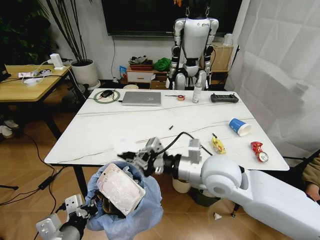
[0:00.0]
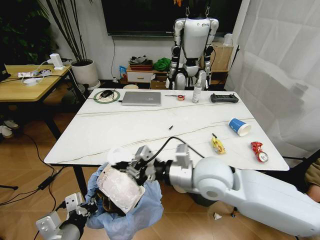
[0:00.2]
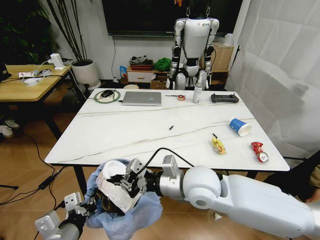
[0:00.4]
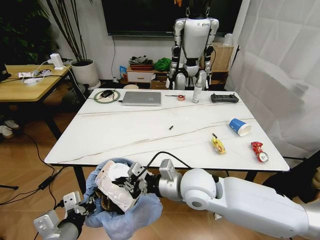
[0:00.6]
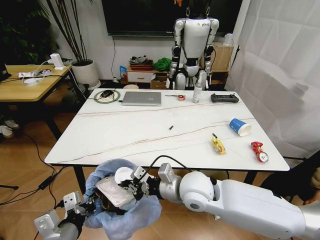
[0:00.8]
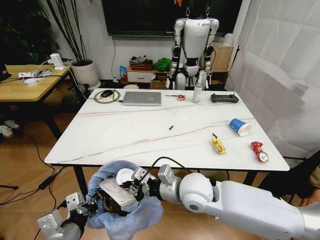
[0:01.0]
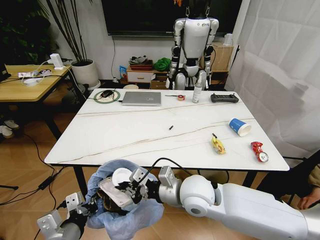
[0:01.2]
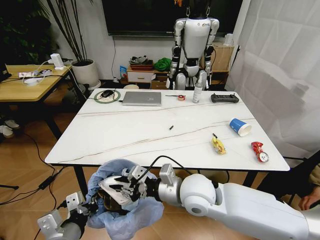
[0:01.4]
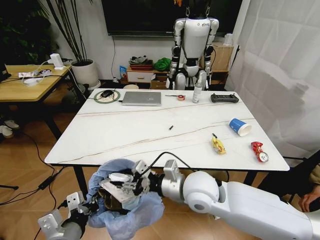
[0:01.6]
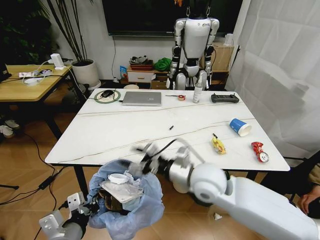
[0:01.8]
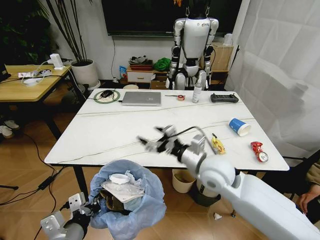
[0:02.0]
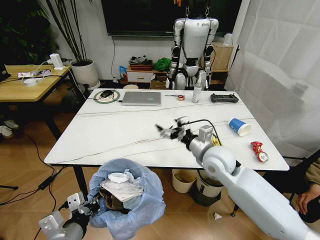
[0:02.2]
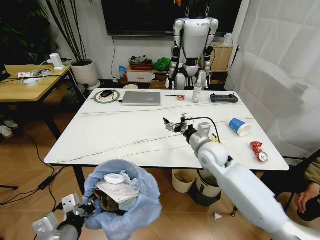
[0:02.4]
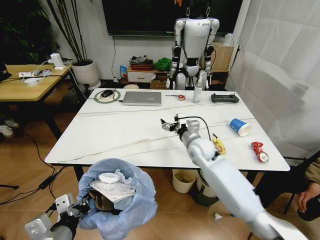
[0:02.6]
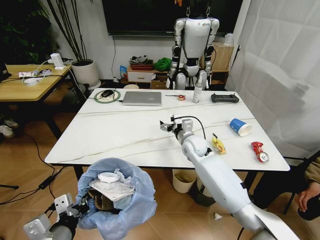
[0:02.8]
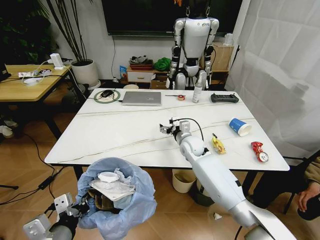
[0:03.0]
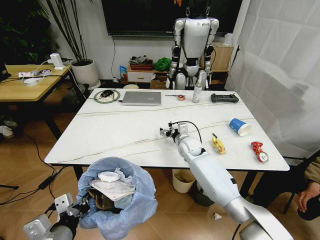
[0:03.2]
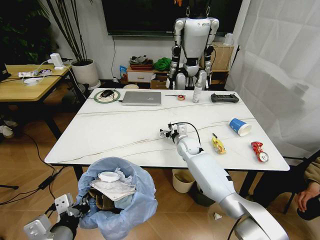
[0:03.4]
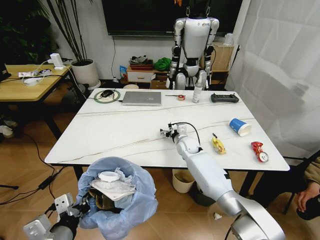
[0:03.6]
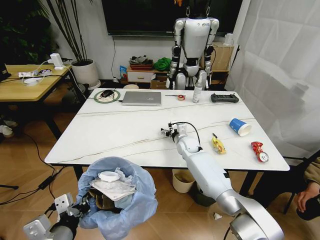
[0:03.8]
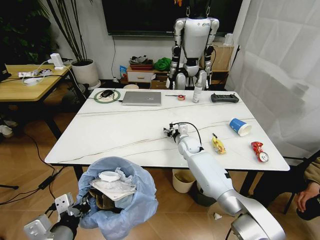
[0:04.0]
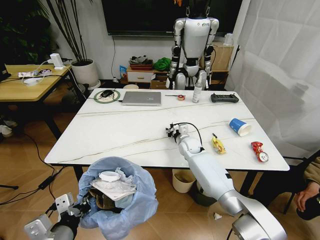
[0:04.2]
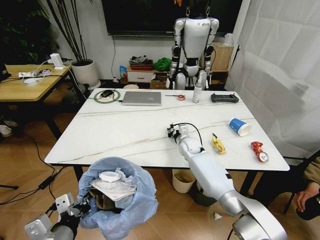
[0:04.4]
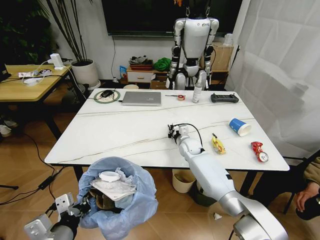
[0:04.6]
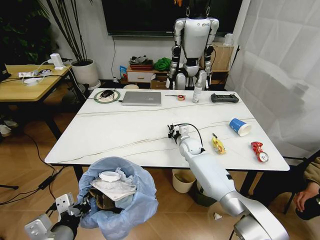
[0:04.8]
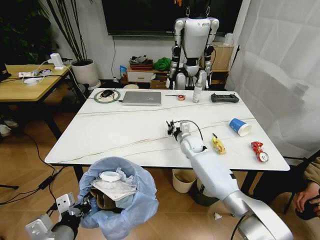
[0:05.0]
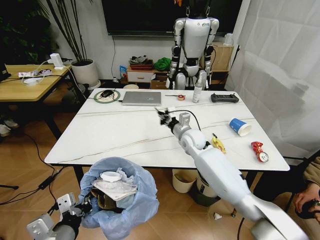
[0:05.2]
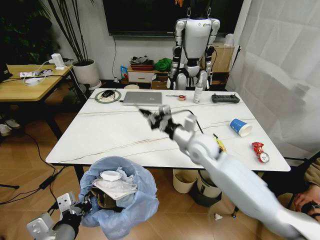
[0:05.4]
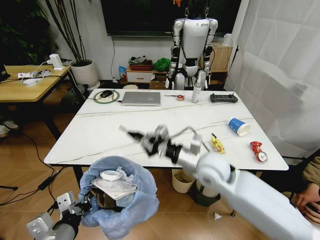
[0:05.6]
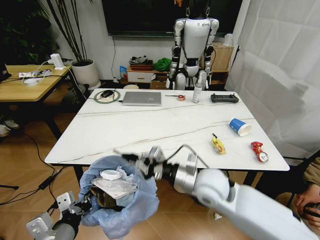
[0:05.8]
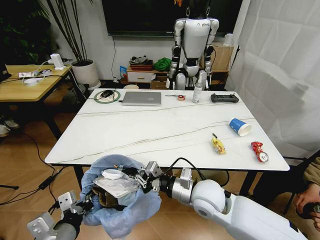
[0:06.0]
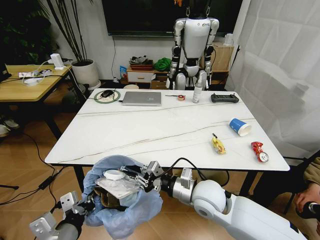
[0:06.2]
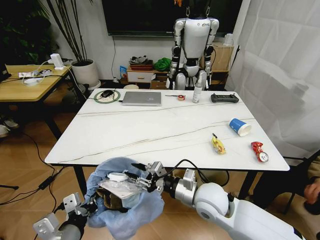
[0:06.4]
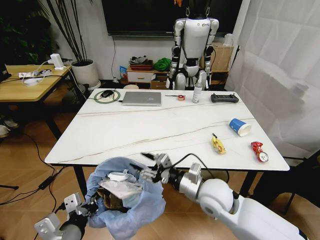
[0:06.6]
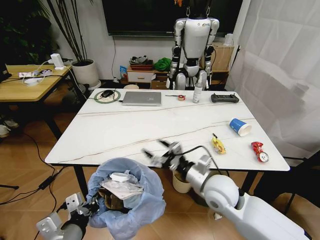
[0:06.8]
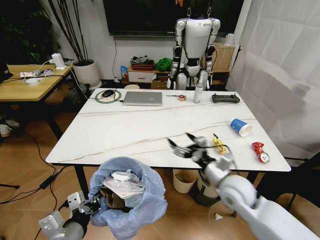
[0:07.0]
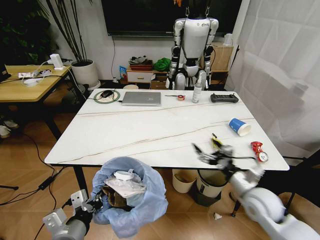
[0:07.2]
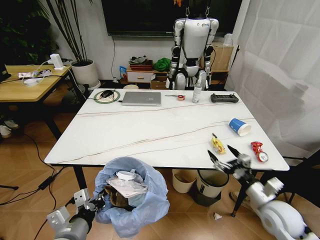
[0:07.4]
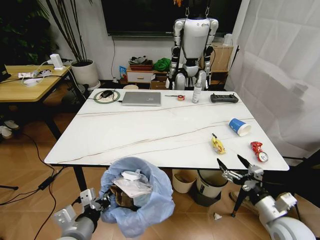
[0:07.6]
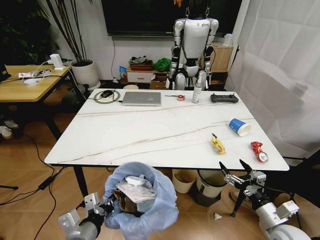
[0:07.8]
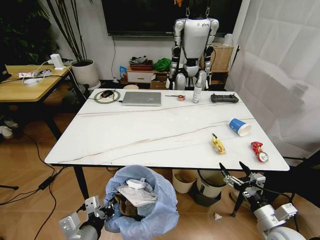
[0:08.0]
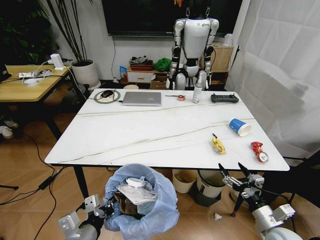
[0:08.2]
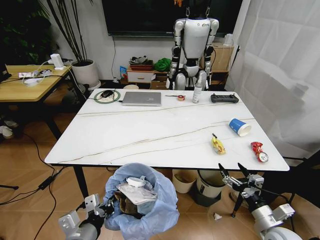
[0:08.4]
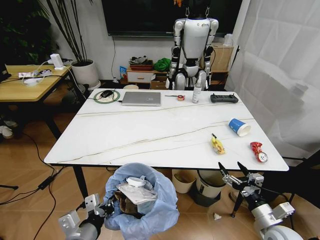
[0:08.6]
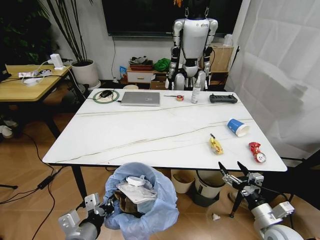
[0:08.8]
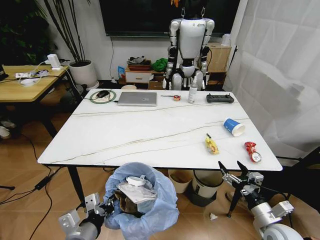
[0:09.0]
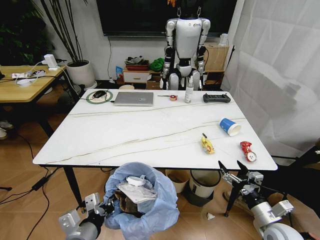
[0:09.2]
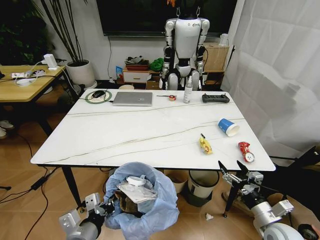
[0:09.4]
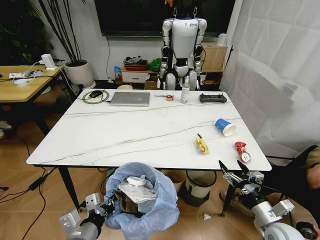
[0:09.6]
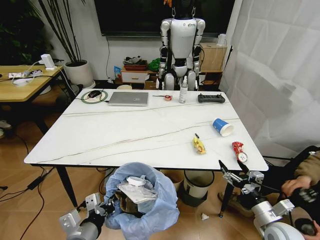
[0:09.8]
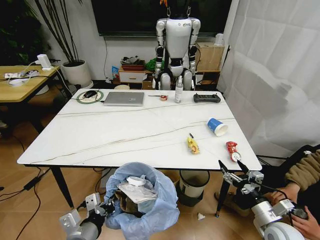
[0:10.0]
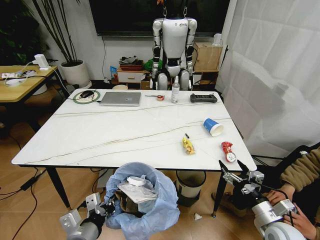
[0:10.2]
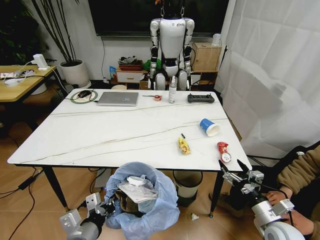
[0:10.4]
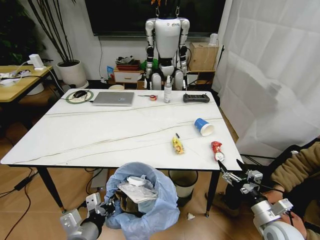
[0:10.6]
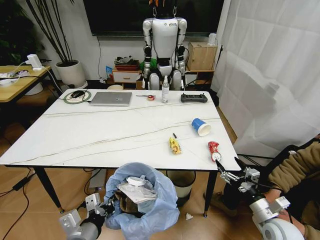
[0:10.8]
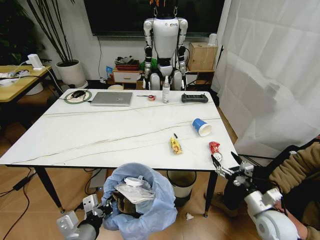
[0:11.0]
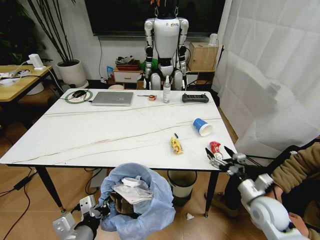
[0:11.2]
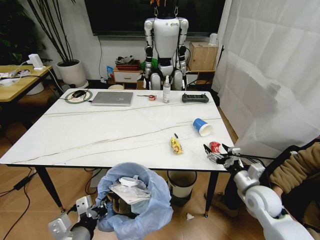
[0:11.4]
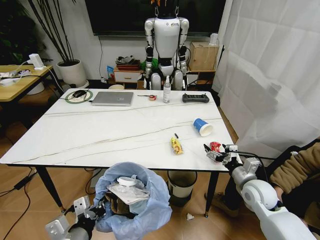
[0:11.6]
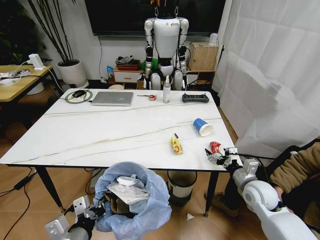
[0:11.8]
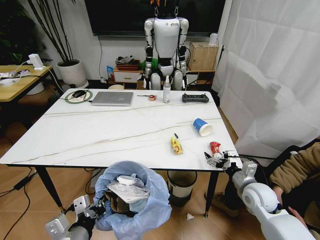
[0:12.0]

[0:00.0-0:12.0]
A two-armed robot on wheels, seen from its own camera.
Task of the whole recording: Pick up the trash bin and place the trash from the table into it.
0:00.0 to 0:01.6: The right gripper moves downward, roughly 5 cm, and opens.
0:01.6 to 0:03.0: The right gripper travels forward and downward by approximately 25 cm, and opens up.
0:03.0 to 0:04.4: The right gripper shifts some 5 cm downward, and closes.
0:04.4 to 0:06.0: The right gripper is displaced backward by approximately 25 cm.
0:06.0 to 0:07.6: The right gripper travels to the right by roughly 25 cm, and opens.
0:10.4 to 0:12.0: The right gripper shifts some 10 cm forward.

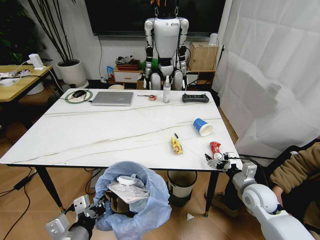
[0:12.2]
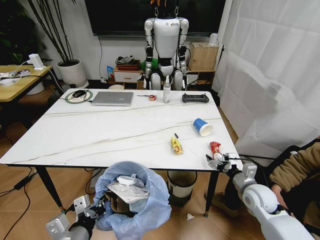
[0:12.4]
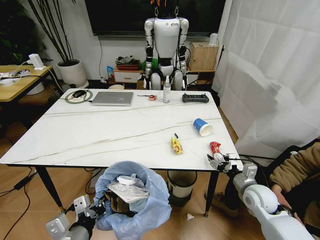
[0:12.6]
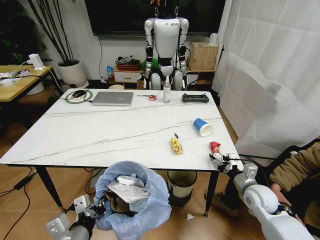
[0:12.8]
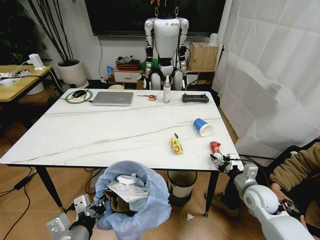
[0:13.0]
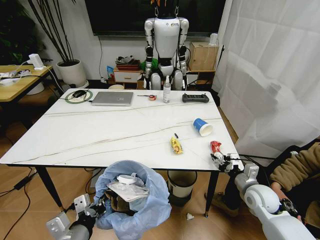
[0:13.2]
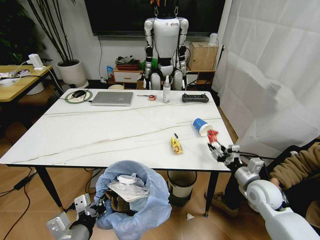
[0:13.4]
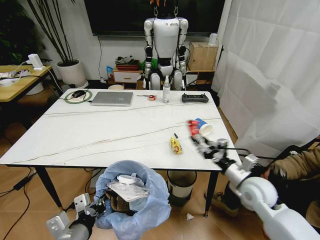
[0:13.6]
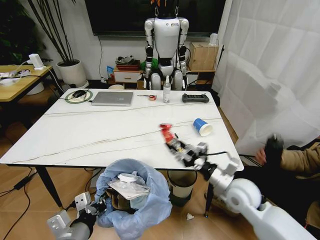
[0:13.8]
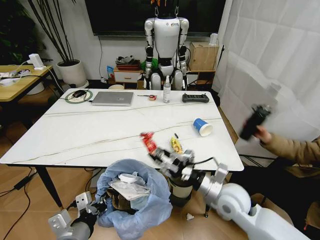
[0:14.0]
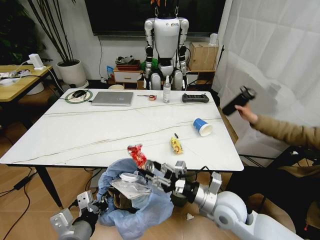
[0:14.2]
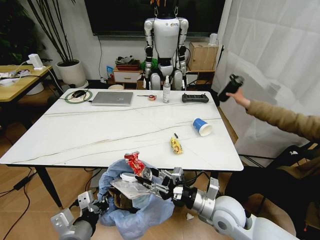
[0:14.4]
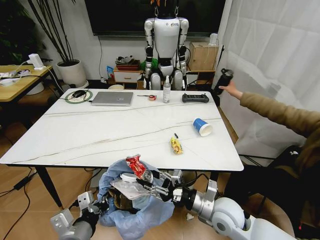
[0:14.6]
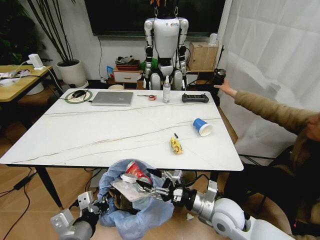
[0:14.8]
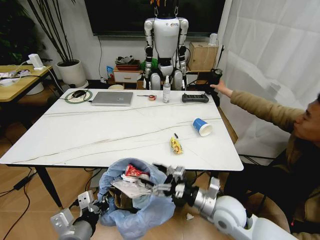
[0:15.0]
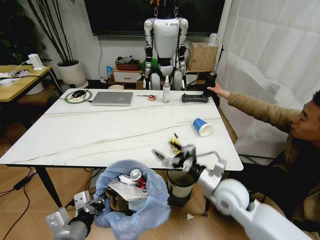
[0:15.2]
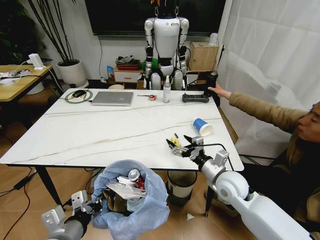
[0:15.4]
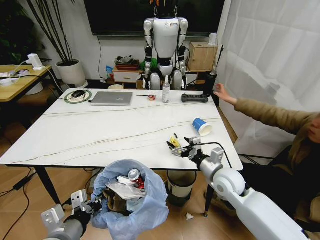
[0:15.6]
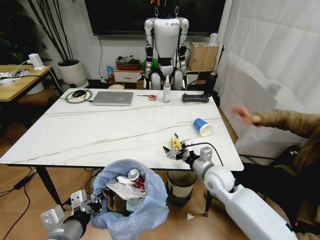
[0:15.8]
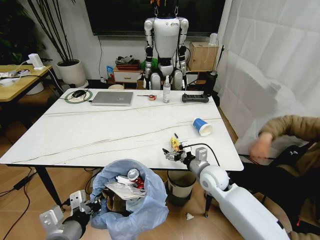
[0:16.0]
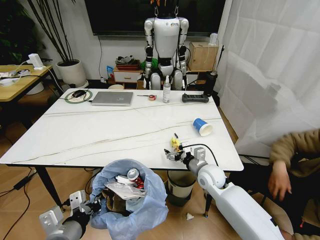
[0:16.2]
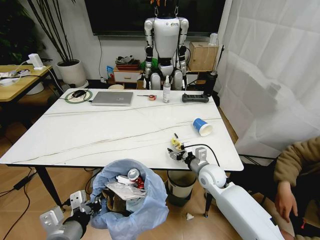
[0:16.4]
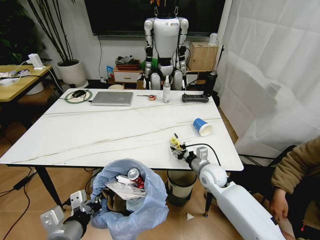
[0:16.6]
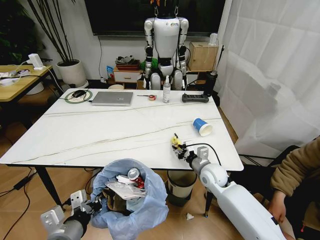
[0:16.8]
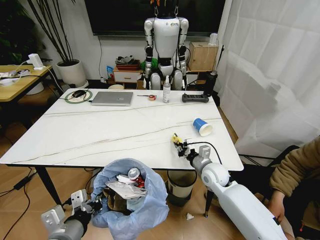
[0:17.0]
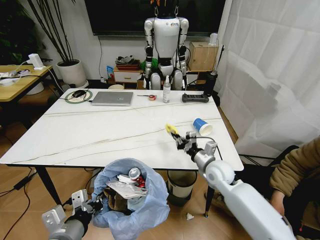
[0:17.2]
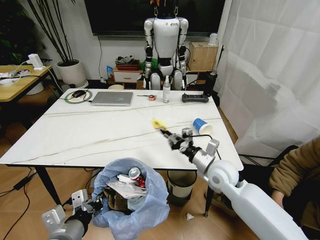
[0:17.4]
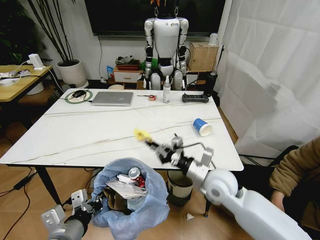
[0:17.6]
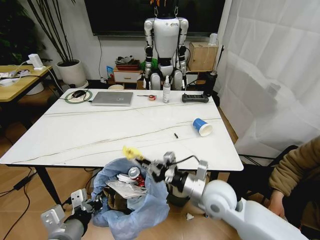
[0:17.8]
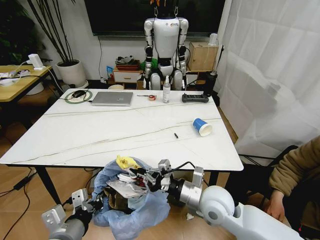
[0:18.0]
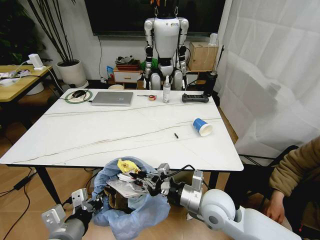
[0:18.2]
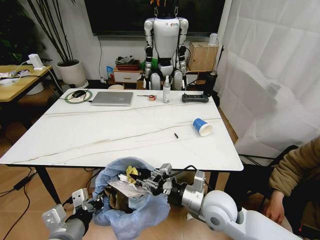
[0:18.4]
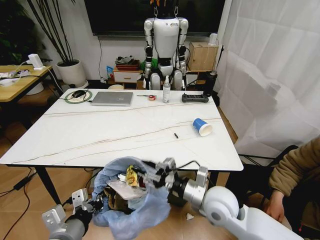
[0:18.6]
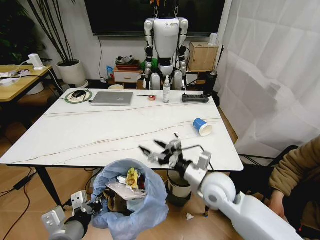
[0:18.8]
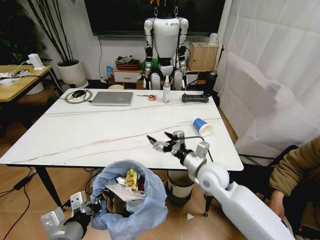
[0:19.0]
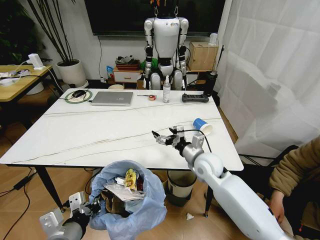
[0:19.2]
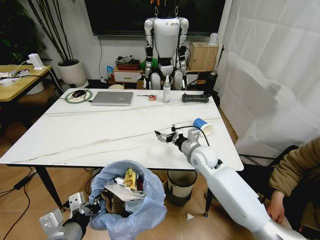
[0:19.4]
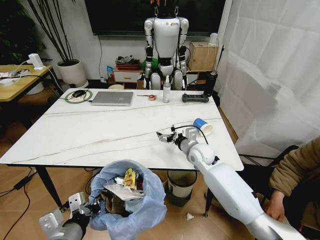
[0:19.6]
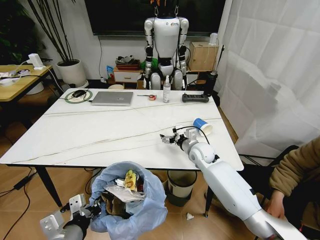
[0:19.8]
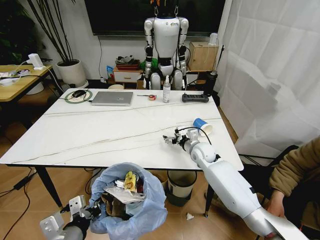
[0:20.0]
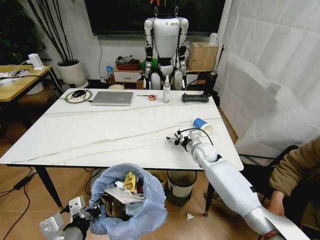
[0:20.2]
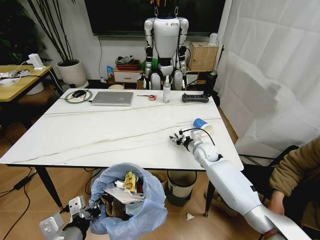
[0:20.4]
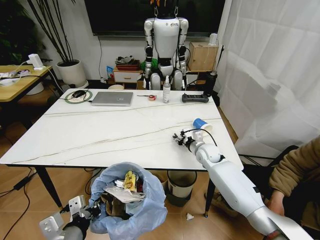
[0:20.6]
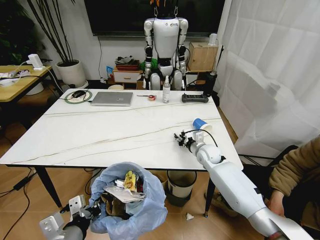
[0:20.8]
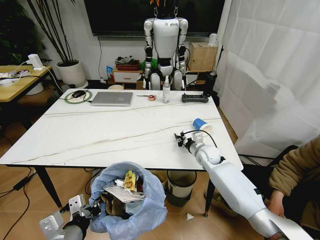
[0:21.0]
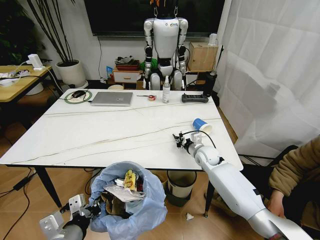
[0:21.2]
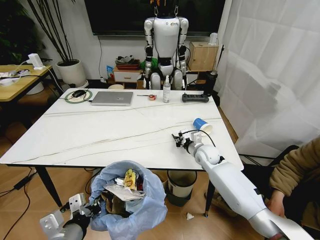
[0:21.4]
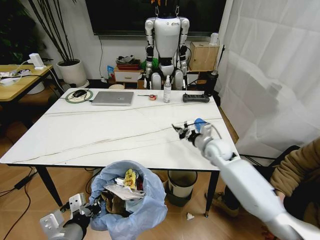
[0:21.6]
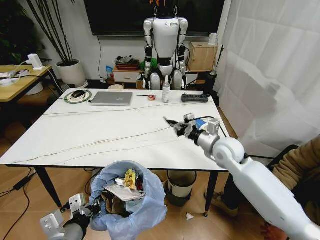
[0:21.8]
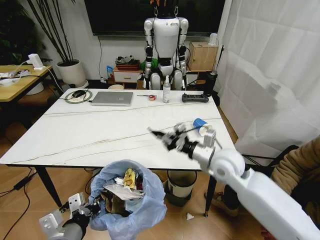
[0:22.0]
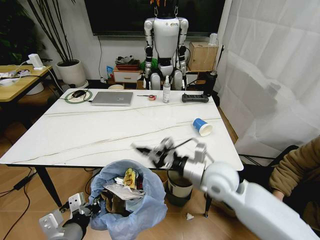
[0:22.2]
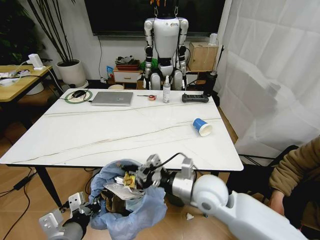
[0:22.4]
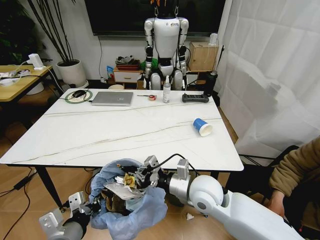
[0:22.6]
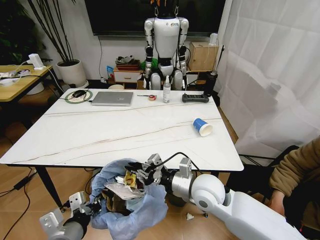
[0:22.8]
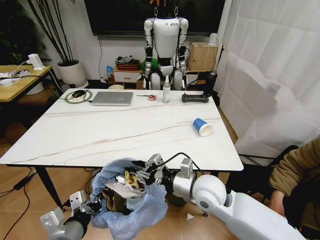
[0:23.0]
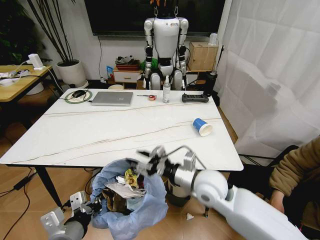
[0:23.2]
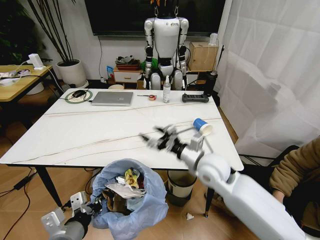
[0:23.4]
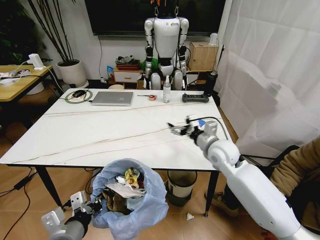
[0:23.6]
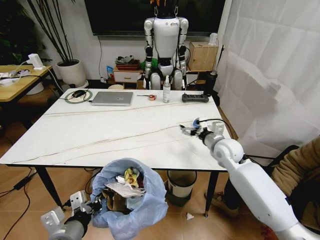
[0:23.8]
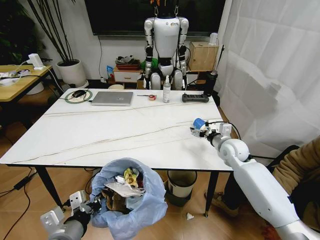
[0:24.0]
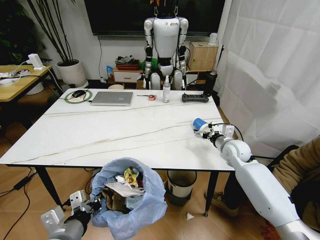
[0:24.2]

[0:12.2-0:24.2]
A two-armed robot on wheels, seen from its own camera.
Task of the whole recording: Pick up the trash bin and place the trash from the table into it.
0:12.2 to 0:13.8: The right gripper goes roughly 10 cm to the left and upward, and closes up.
0:13.8 to 0:15.2: The right gripper opens up.
0:15.2 to 0:16.6: The right gripper travels forward and downward by approximately 10 cm, and closes.
0:16.6 to 0:18.2: The right gripper travels backward and upward by some 15 cm, and closes.
0:18.2 to 0:19.8: The right gripper moves forward, some 20 cm, and opens up.
0:19.8 to 0:21.2: The right gripper closes.
0:21.2 to 0:22.6: The right gripper heads backward and upward, covering approximately 20 cm.
0:22.6 to 0:24.2: The right gripper goes about 25 cm forward and to the right, and opens.
